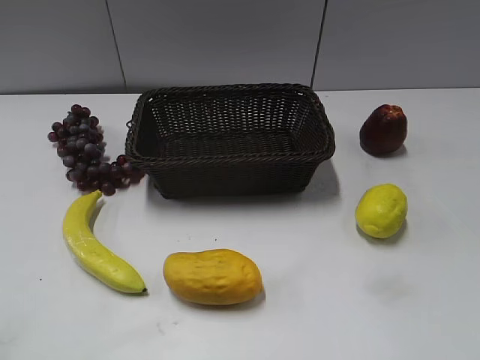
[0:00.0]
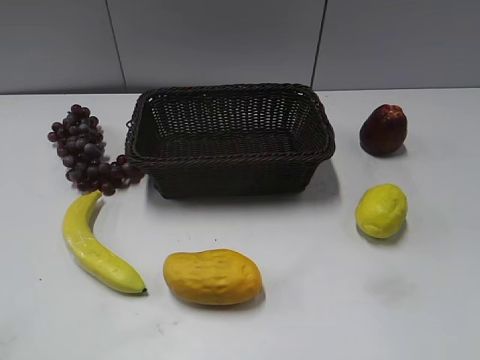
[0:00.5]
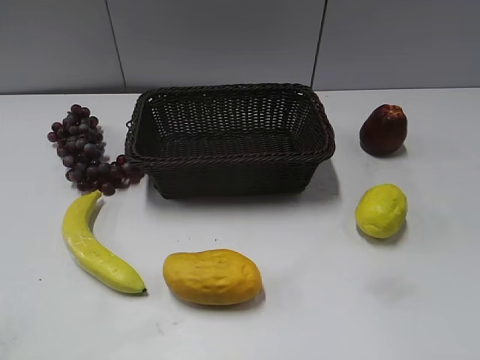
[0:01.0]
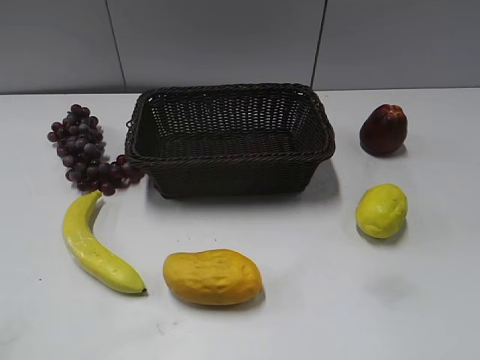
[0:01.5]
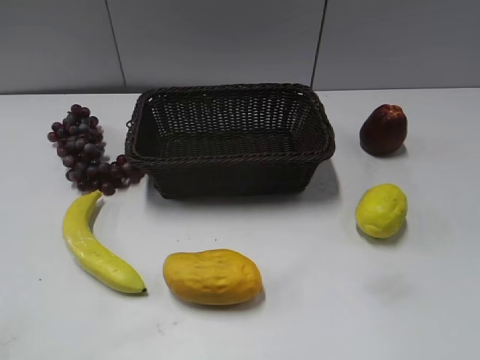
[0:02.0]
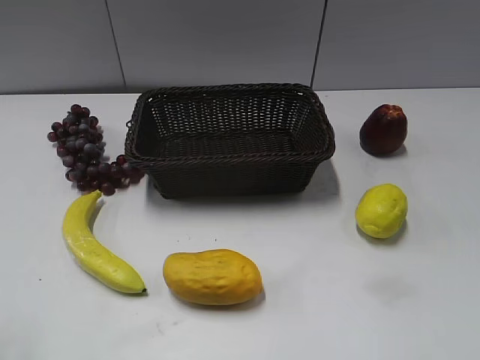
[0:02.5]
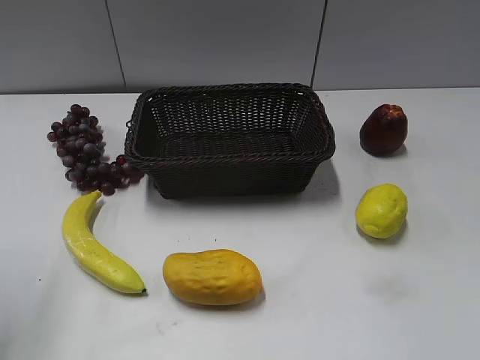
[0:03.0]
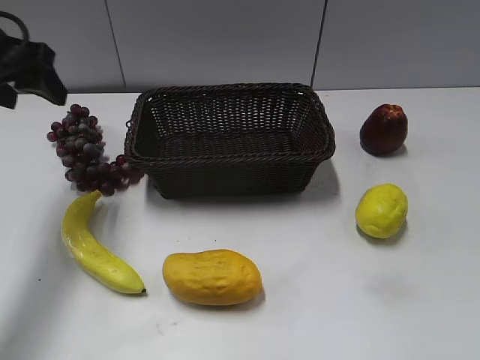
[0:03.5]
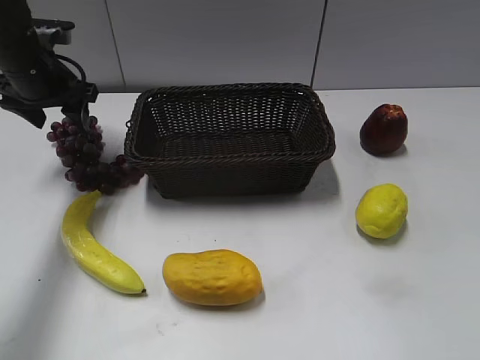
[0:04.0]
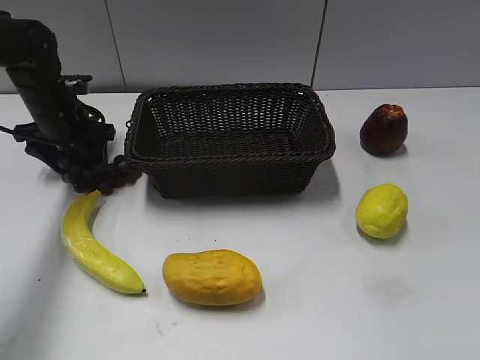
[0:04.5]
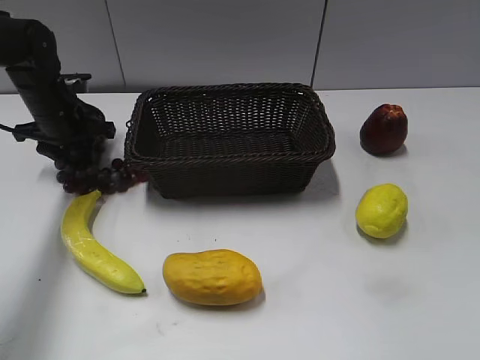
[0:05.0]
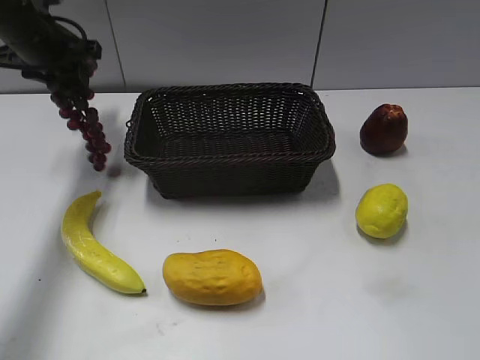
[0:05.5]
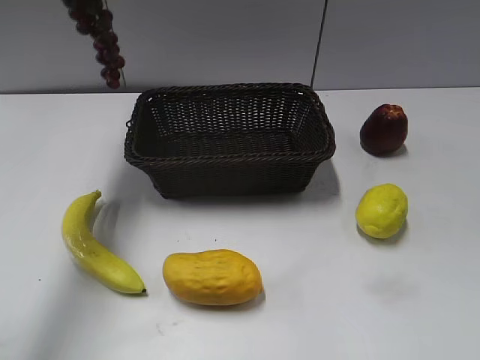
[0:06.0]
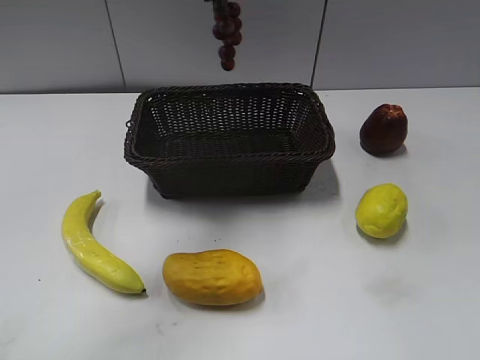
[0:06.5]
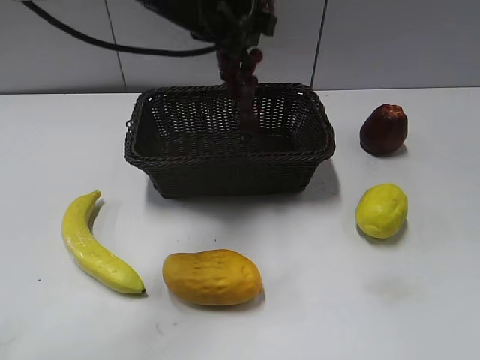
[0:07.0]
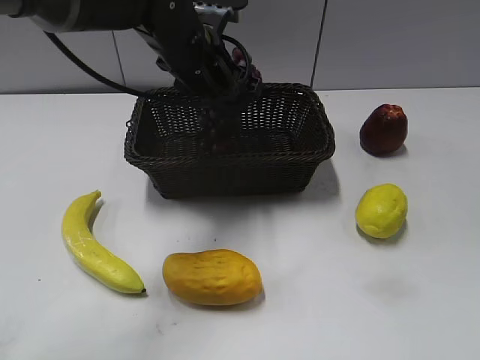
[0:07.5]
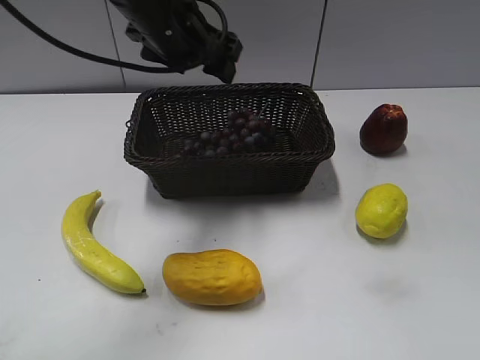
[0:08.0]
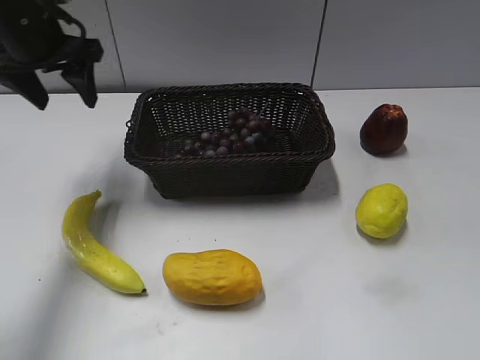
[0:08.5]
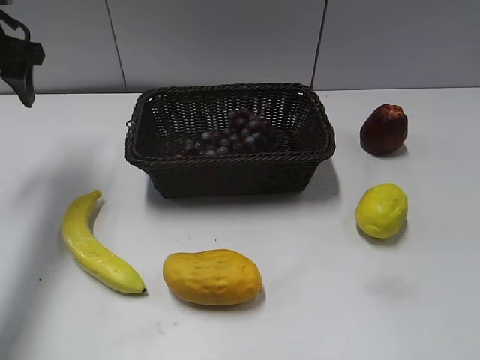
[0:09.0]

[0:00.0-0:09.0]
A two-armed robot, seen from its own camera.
Step, 0:03.5 to 0:04.5: Grasp the grape with left gripper.
Step, 0:05.5 to 0:07.5: Place the grape in the basket with left gripper.
0:02.0 to 0:04.5: The left gripper moves forward, roughly 50 cm.
0:04.5 to 0:07.0: The left gripper travels to the right and upward by roughly 25 cm, and closes.
0:07.0 to 0:09.0: The left gripper travels to the left by approximately 25 cm, and opens its fingers.

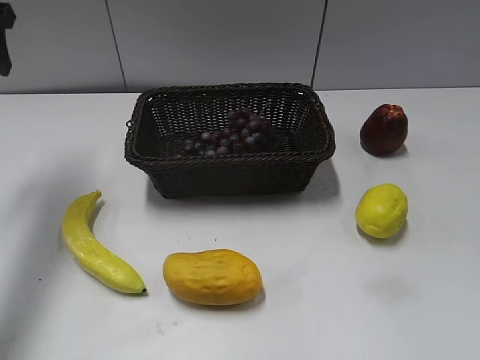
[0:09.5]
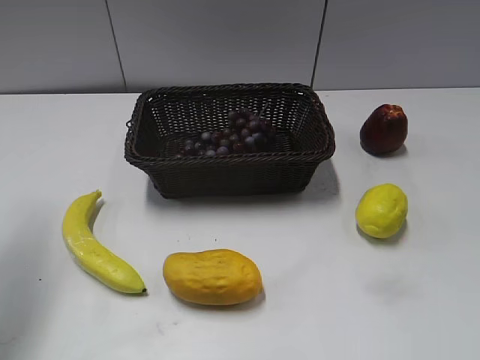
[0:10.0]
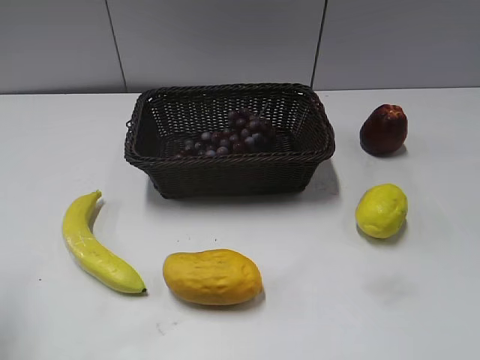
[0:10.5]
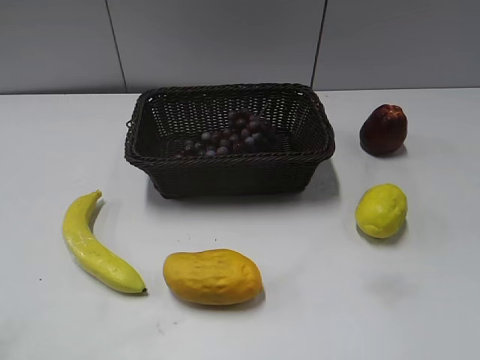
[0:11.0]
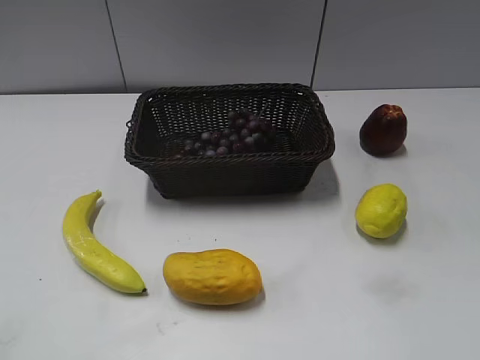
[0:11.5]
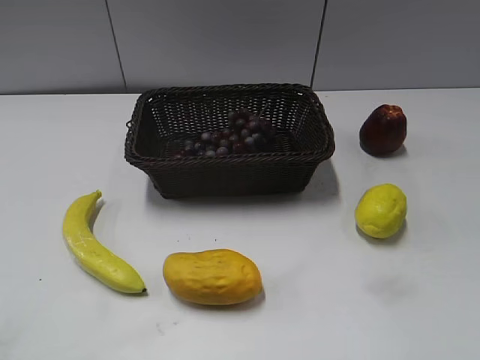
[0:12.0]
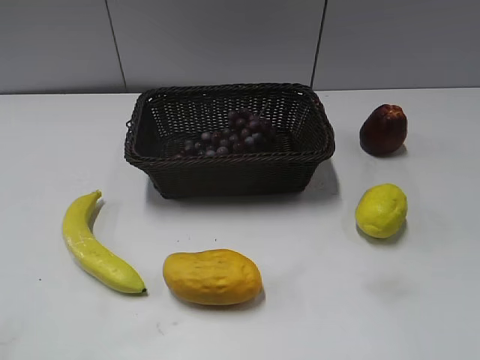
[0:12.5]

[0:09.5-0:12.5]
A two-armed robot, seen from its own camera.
0:09.5 to 0:11.0: The left gripper heads backward, covering some 30 cm.
